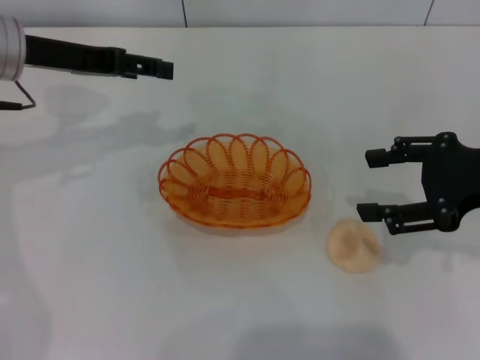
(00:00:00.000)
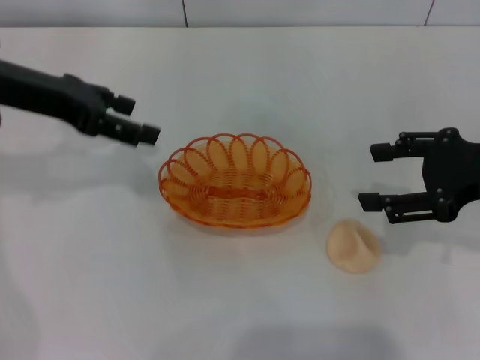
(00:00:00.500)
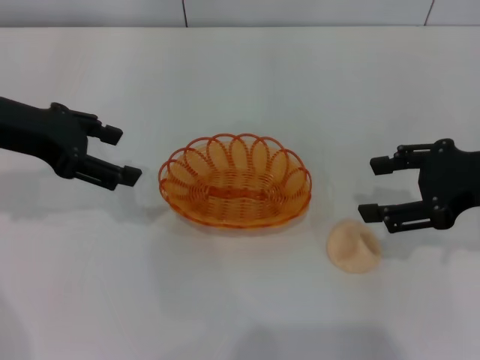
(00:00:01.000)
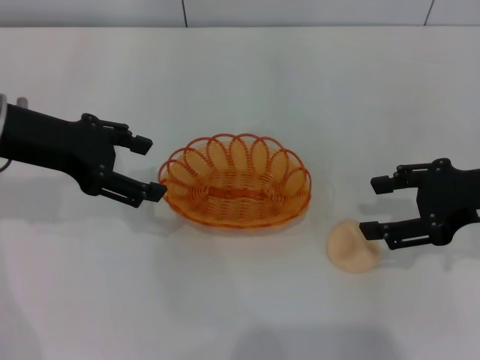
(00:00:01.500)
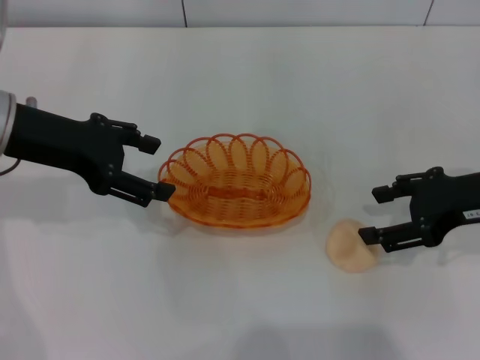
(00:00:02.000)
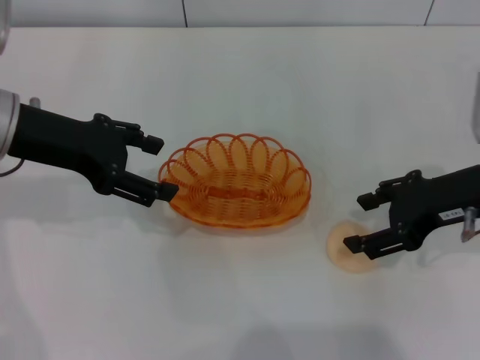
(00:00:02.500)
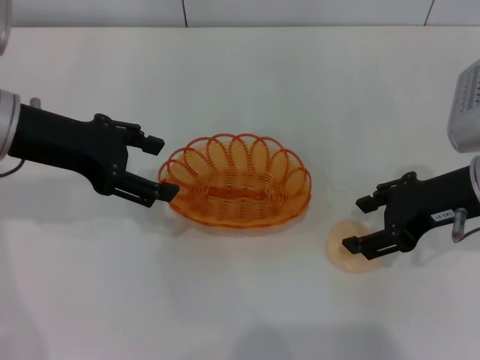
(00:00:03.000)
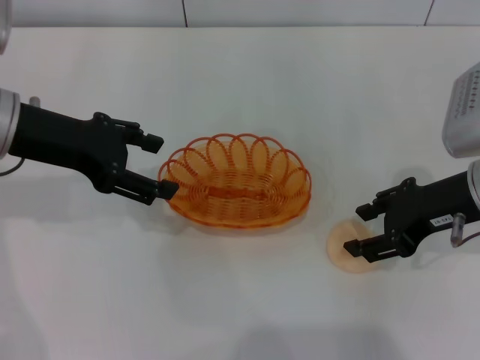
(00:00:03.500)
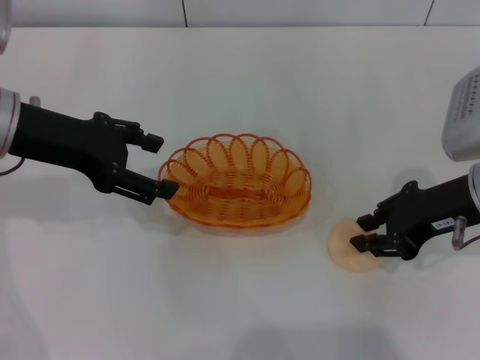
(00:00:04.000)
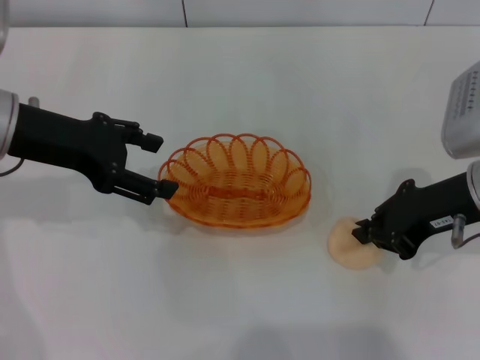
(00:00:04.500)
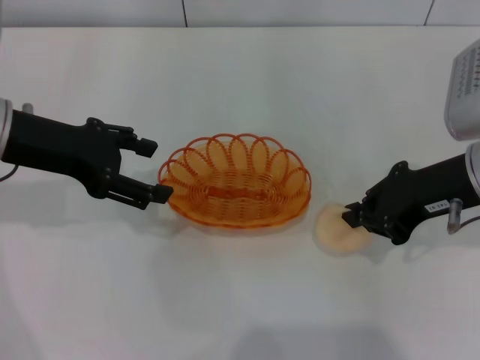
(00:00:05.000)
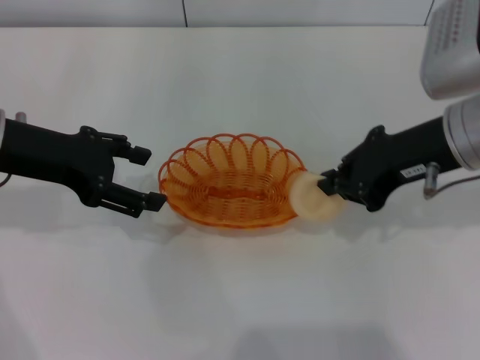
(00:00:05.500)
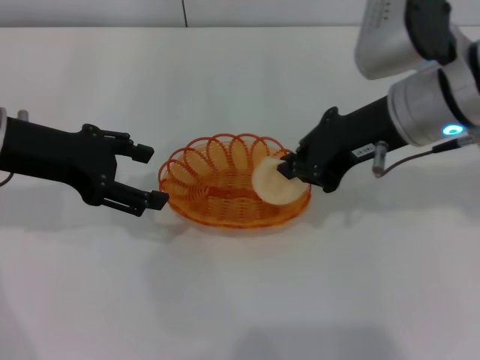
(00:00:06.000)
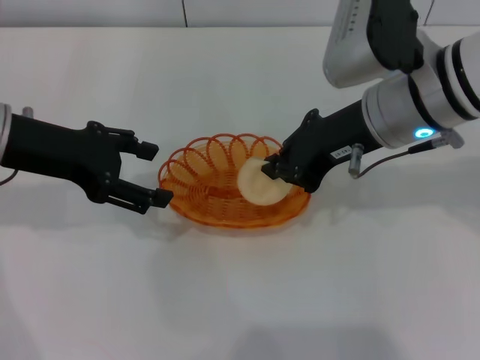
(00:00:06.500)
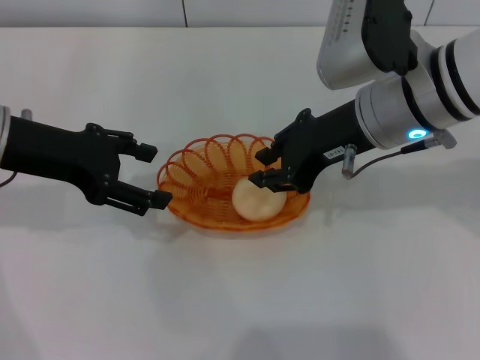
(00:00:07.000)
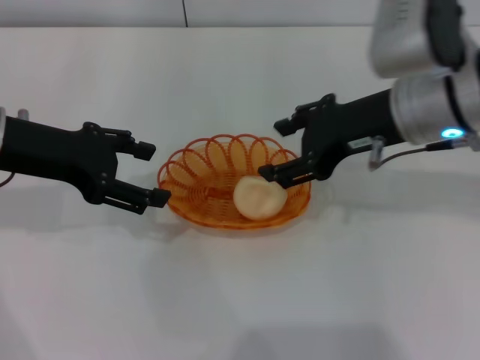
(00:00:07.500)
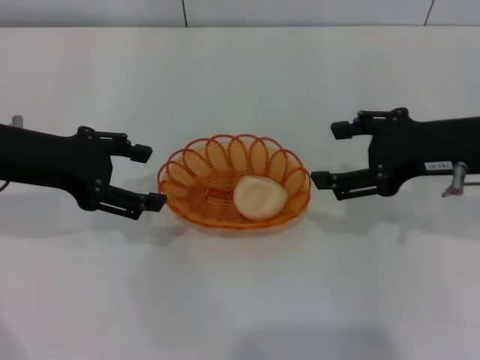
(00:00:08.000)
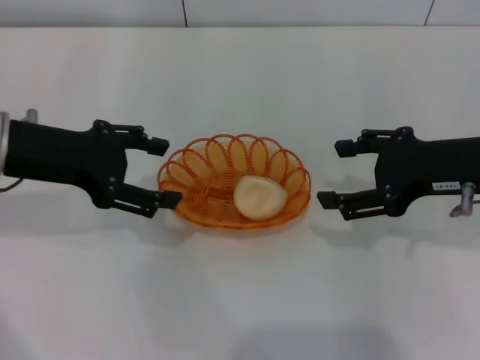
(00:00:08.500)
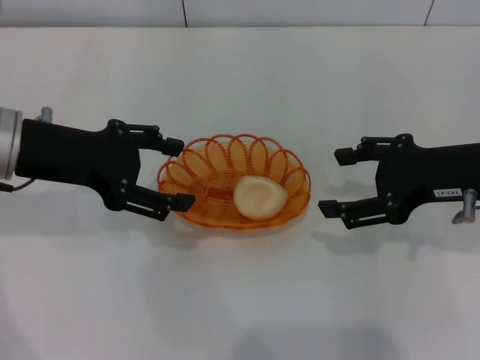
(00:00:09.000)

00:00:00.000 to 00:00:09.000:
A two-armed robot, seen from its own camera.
Step, 00:00:00.000 to 00:00:05.000: Pick up the egg yolk pastry with the right gripper.
Step, 00:00:05.500 to 00:00:07.500: Place the egg yolk pastry into the basket with the right gripper.
00:00:00.000 to 00:00:02.000: The left gripper is displaced backward by about 5 cm.
00:00:02.000 to 00:00:04.500: The right gripper closes its fingers.
00:00:04.500 to 00:00:07.000: The right gripper shifts roughly 10 cm to the left.
00:00:07.000 to 00:00:09.000: The right gripper heads to the right, covering about 10 cm, and opens up.
